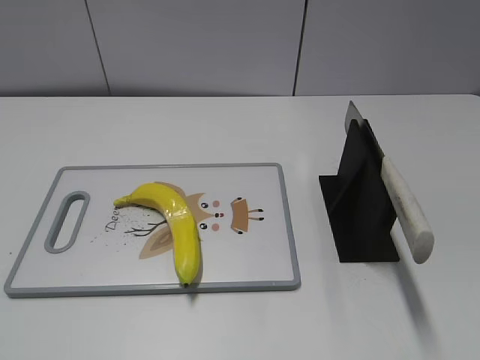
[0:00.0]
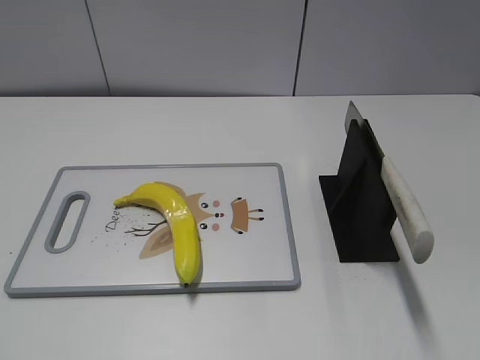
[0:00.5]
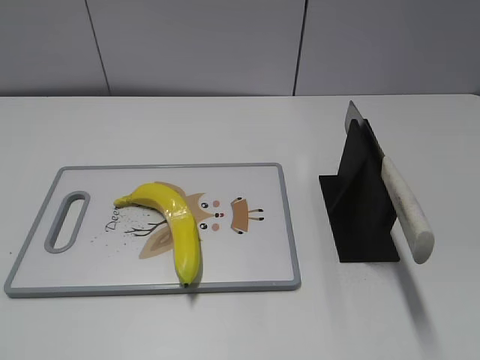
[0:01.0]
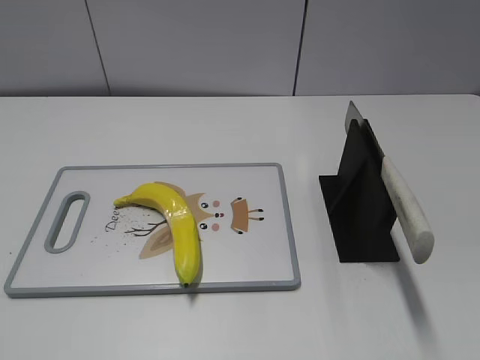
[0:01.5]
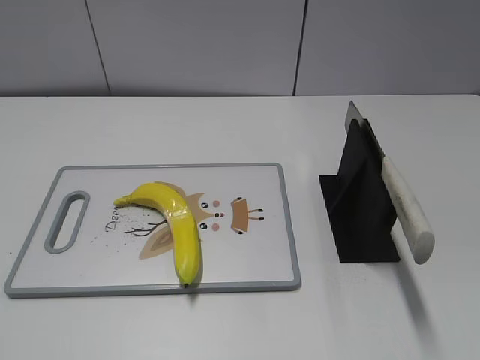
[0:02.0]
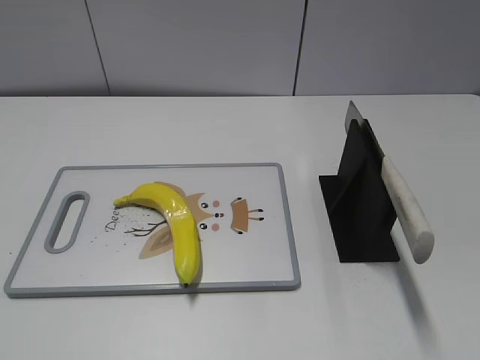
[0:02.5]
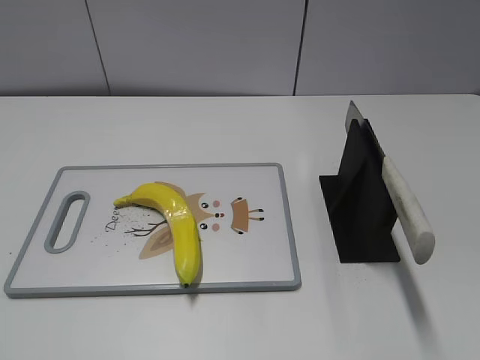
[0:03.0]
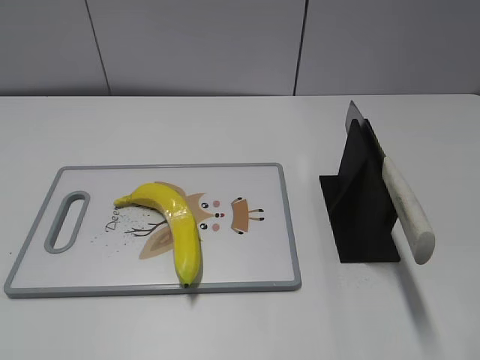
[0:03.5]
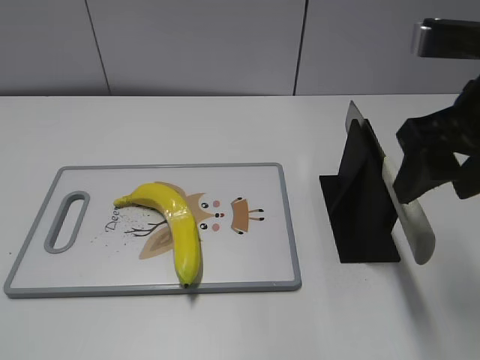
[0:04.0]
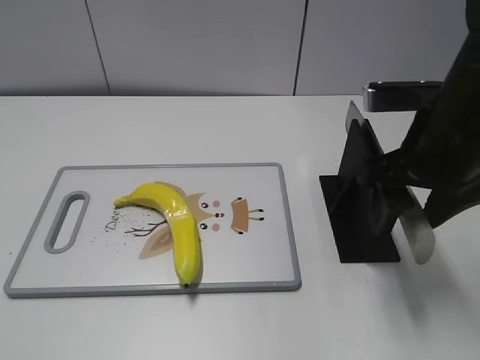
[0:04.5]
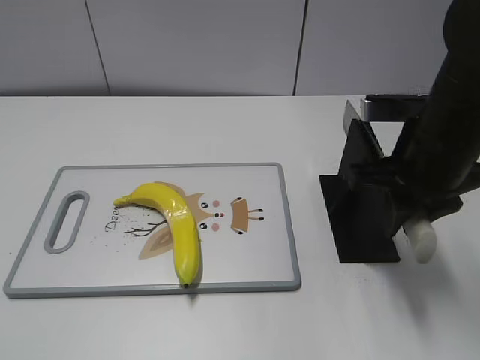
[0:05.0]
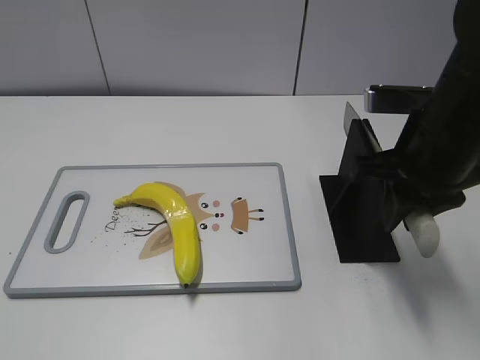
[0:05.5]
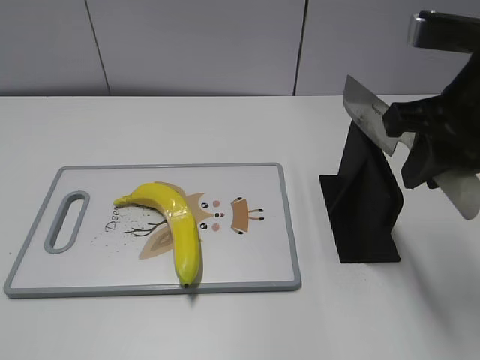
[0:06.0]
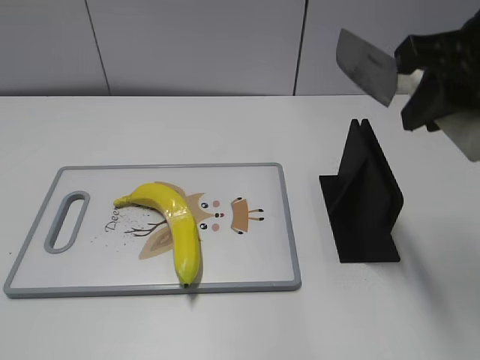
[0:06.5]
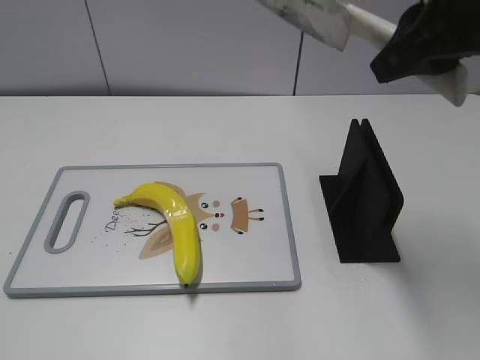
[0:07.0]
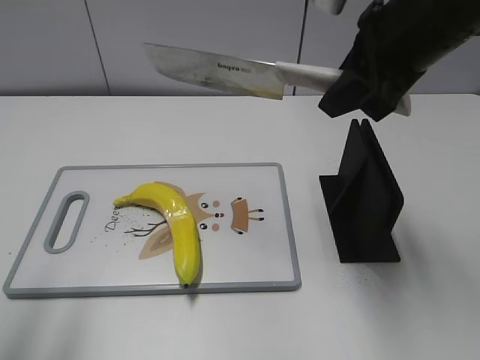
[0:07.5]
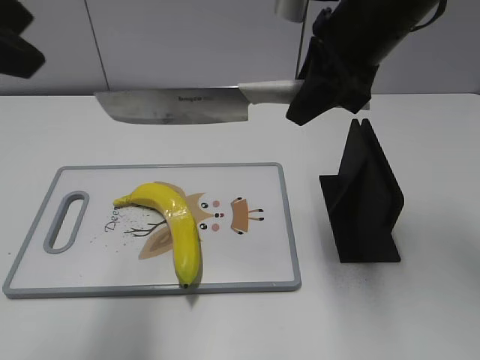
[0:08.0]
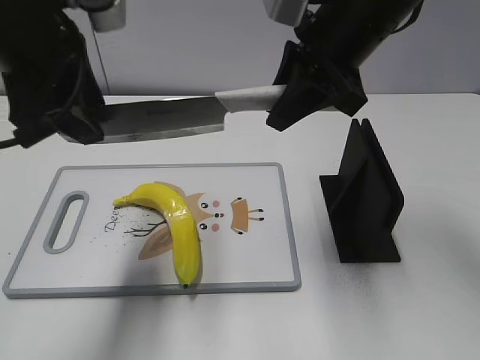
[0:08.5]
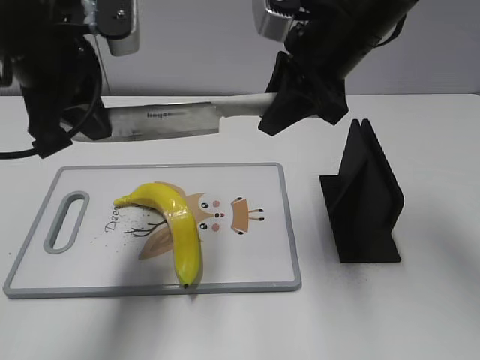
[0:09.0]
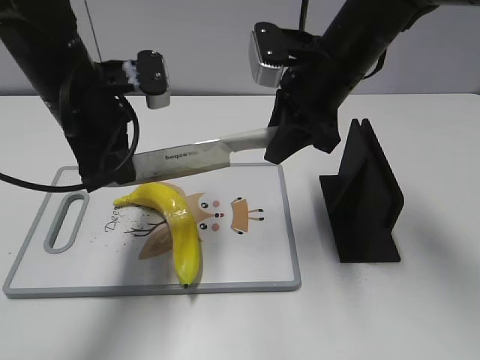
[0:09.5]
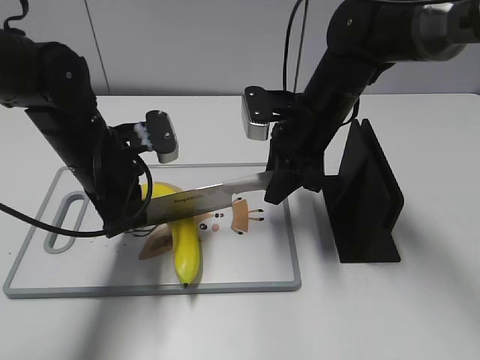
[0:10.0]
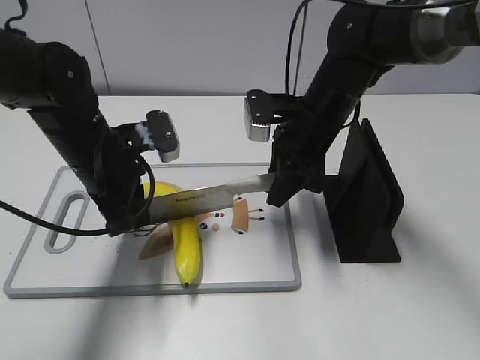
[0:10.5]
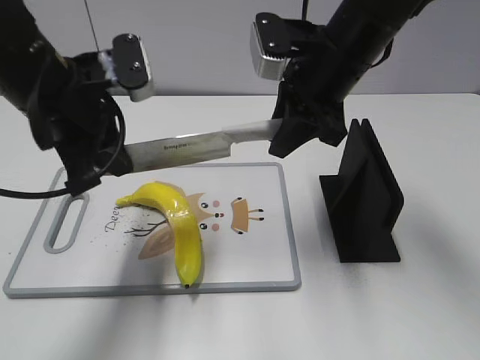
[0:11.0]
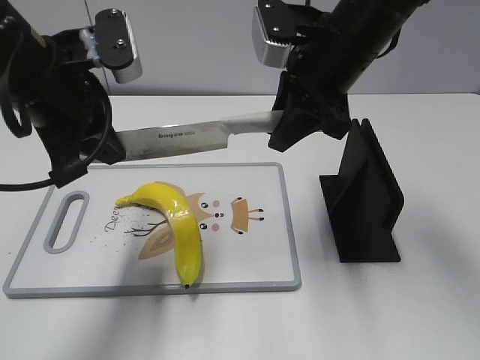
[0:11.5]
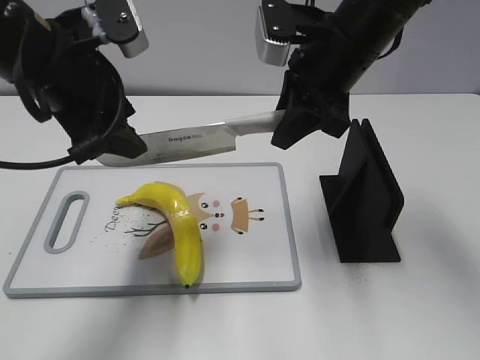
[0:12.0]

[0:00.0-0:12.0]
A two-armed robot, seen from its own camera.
Task of the whole recording: cut plastic banana.
Step, 0:00.0 to 0:06.0: Grab the knife handle with your right hand.
Step, 0:06.5 to 0:11.0: Lift the knife with your right hand.
0:02.0 to 0:04.0: The right gripper heads forward and to the left, covering roughly 25 cm.
0:04.0 to 0:06.0: The right gripper travels downward and back again, approximately 10 cm each way, and closes its fingers.
0:06.0 to 0:08.0: The left gripper shifts roughly 25 cm forward, upward and to the right; the right gripper heads forward and to the left, covering roughly 10 cm.
0:08.0 to 0:10.0: The left gripper heads downward and forward, covering about 25 cm, and closes, while the right gripper heads downward, covering approximately 15 cm.
0:10.0 to 0:12.0: The grippers both shift upward by some 10 cm. The left gripper opens.

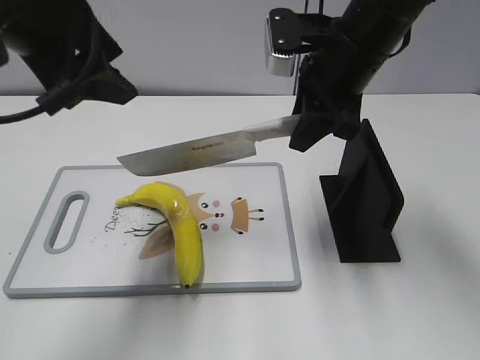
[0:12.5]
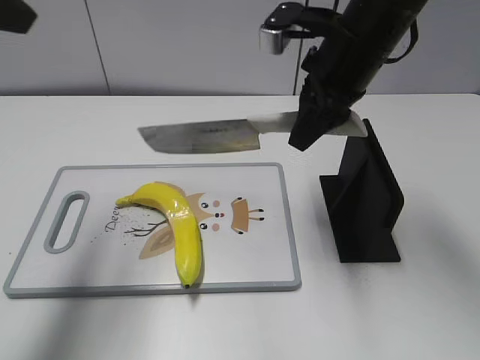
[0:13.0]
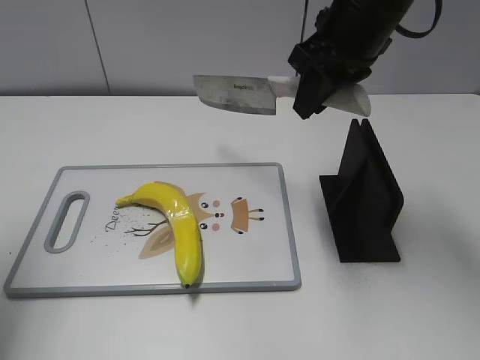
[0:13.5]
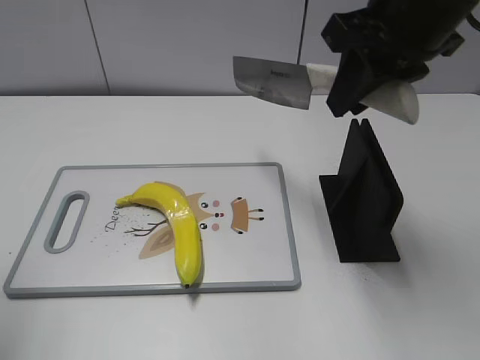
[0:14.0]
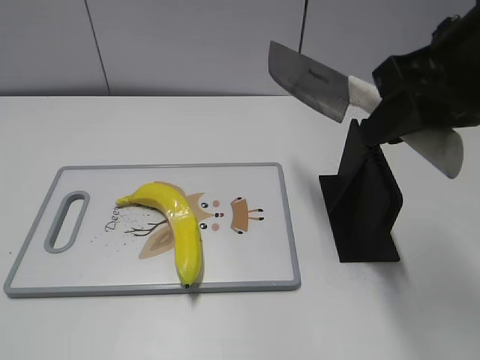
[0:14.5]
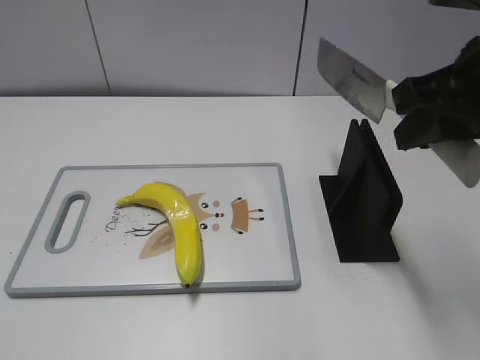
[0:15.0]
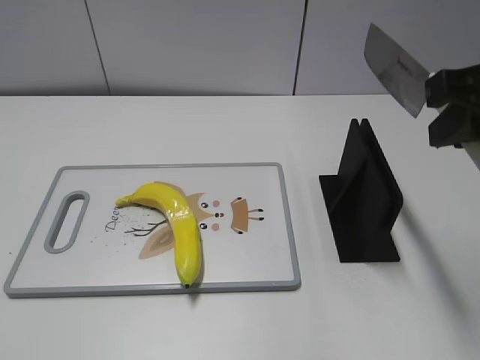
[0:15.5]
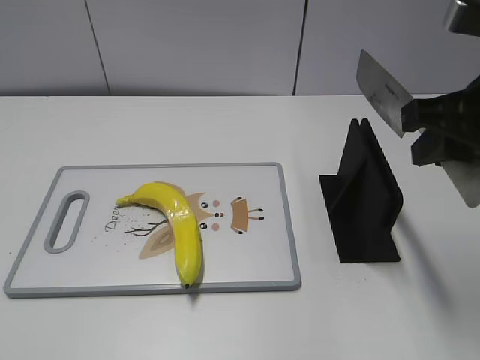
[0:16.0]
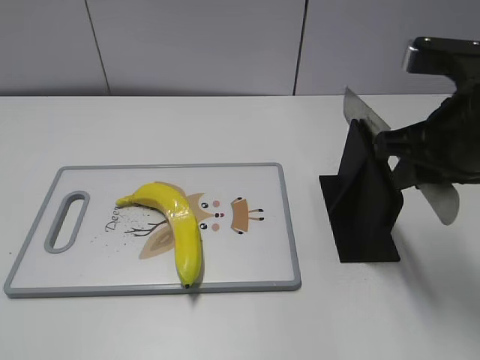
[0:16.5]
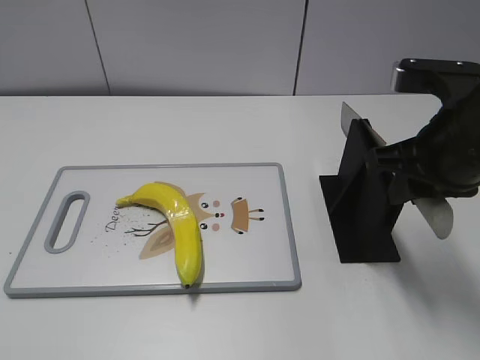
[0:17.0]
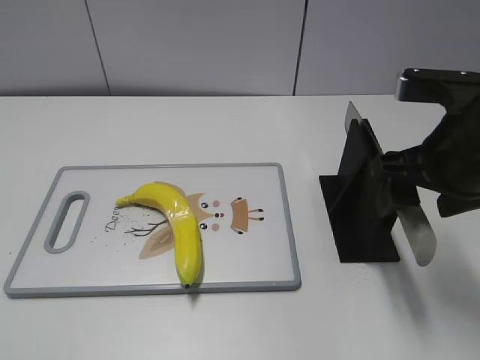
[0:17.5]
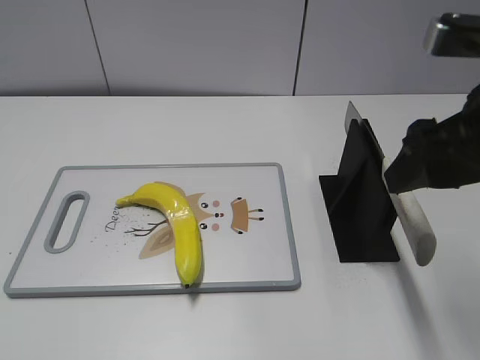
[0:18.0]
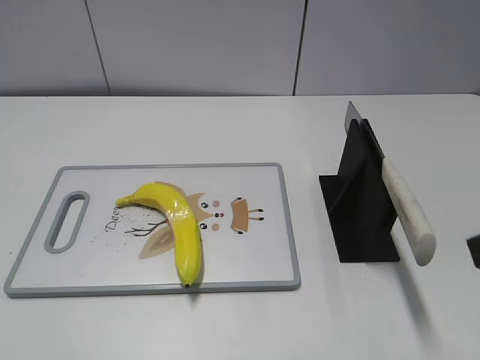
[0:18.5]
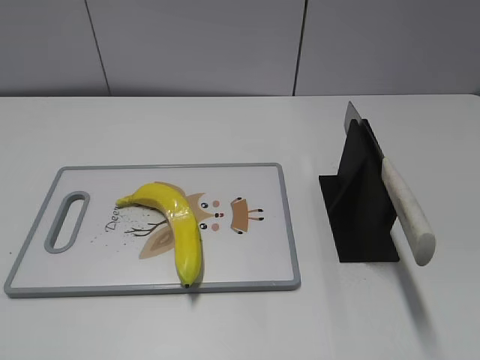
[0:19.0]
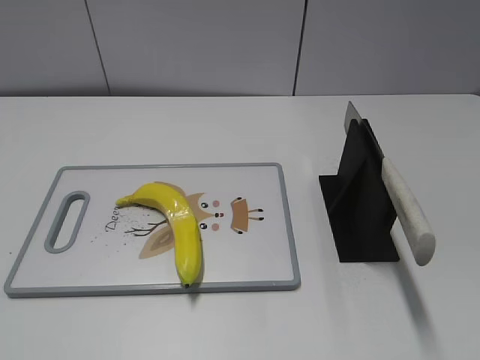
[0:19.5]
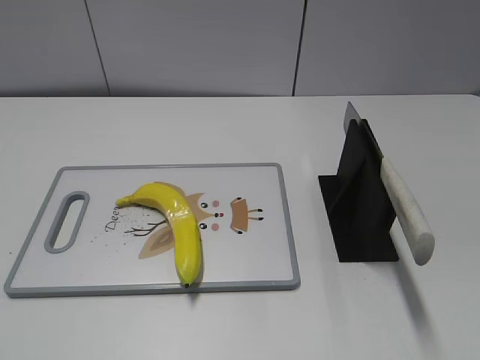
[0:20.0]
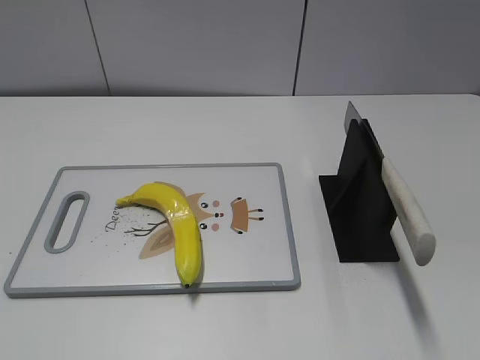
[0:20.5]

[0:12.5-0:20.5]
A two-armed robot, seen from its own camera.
Task of the whole recording: cut plastic banana.
Step, 0:14.5 to 0:20.5: Place the knife on the storage rack with your right hand.
0:12.5 to 0:14.5: The left gripper shifts approximately 25 cm backward and to the left; the right gripper shifts about 15 cm backward, upward and to the right.
0:14.5 to 0:16.5: The right gripper goes approximately 10 cm downward. The left gripper travels backward by approximately 5 cm.
0:16.5 to 0:18.5: The right gripper goes approximately 15 cm backward, and opens its fingers.
